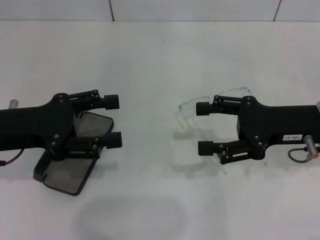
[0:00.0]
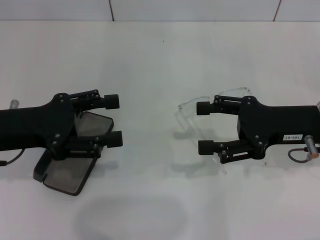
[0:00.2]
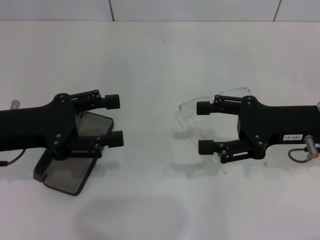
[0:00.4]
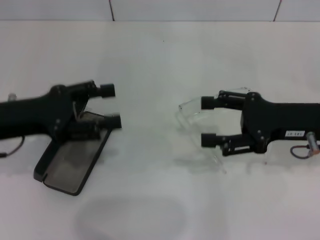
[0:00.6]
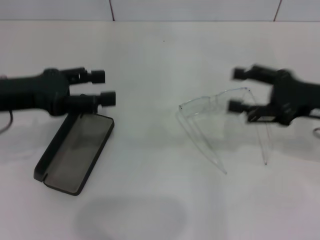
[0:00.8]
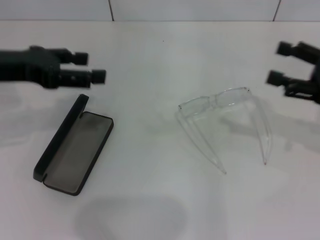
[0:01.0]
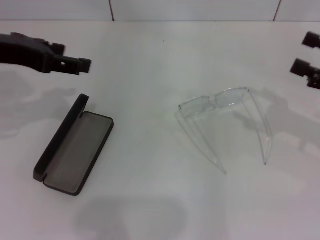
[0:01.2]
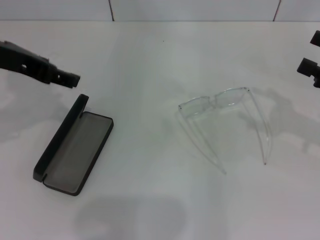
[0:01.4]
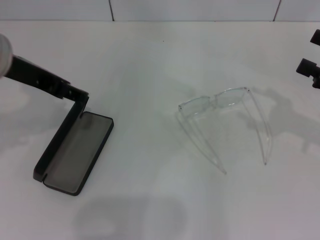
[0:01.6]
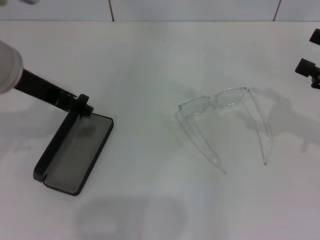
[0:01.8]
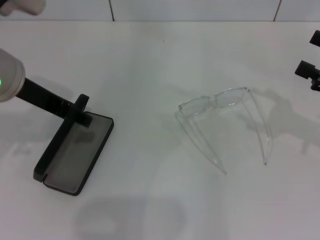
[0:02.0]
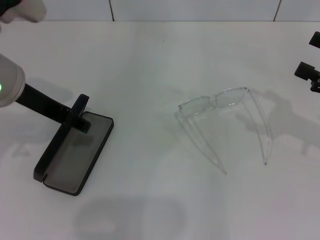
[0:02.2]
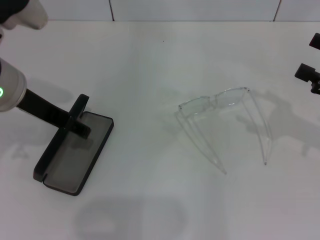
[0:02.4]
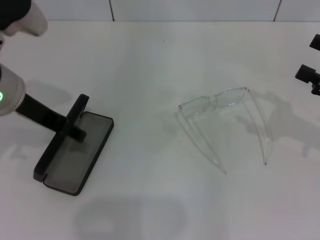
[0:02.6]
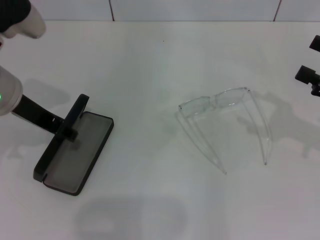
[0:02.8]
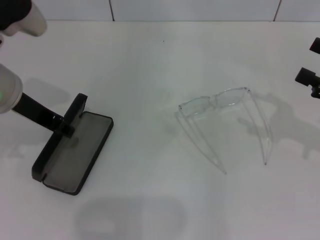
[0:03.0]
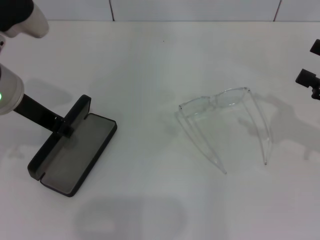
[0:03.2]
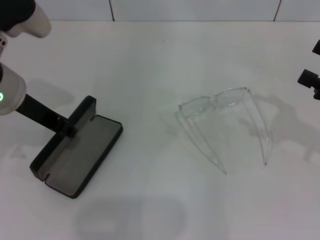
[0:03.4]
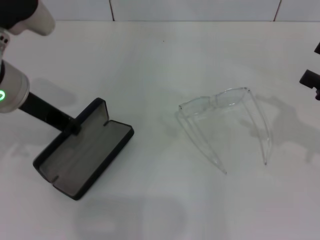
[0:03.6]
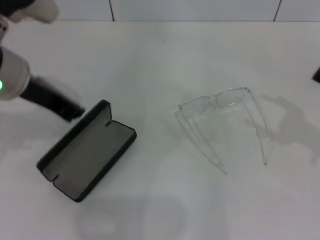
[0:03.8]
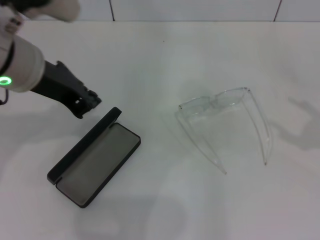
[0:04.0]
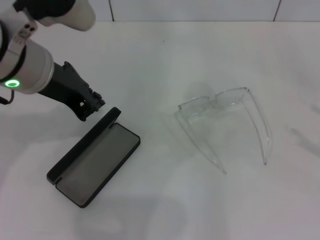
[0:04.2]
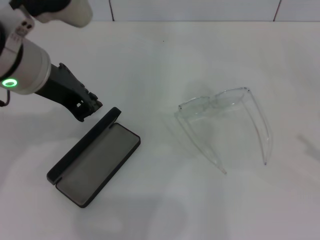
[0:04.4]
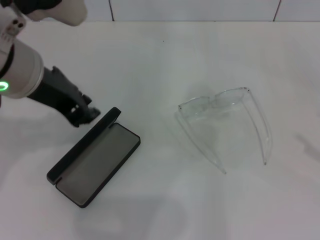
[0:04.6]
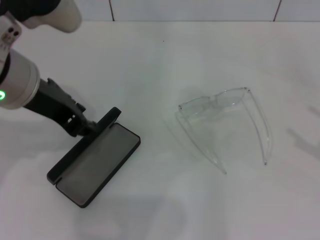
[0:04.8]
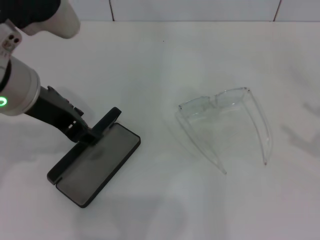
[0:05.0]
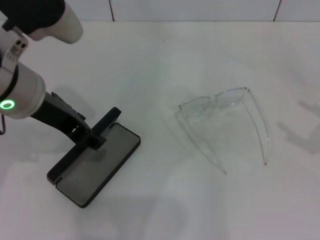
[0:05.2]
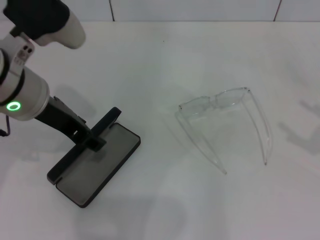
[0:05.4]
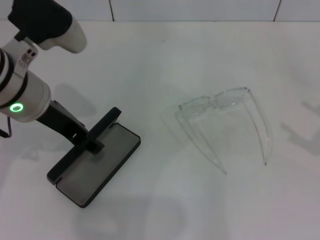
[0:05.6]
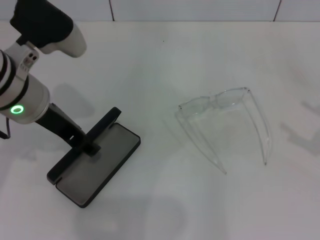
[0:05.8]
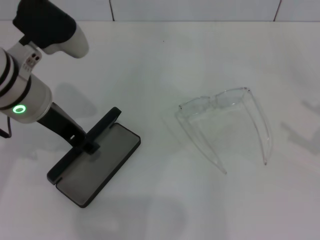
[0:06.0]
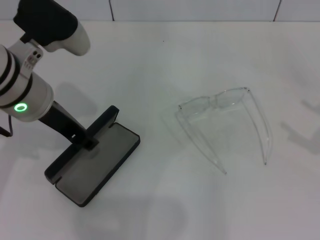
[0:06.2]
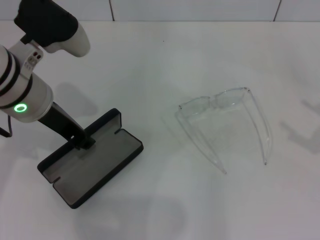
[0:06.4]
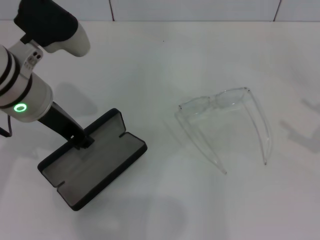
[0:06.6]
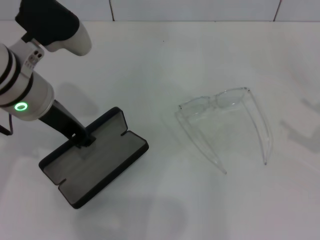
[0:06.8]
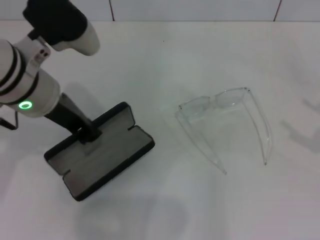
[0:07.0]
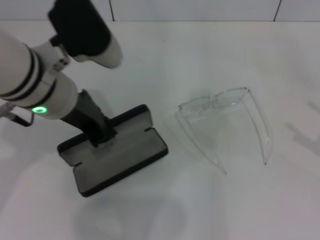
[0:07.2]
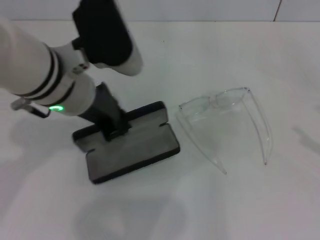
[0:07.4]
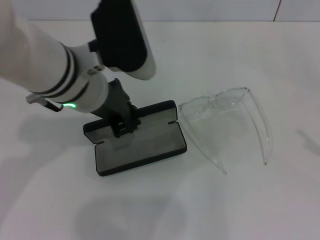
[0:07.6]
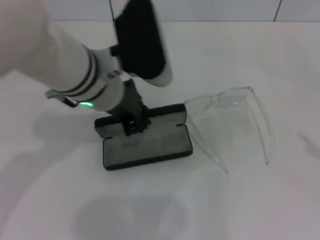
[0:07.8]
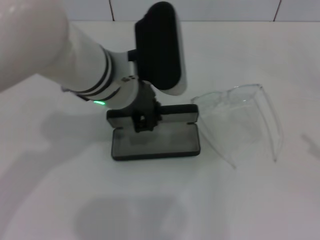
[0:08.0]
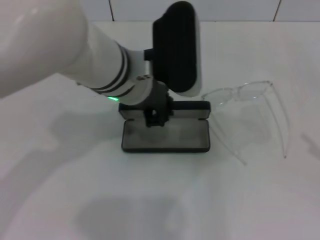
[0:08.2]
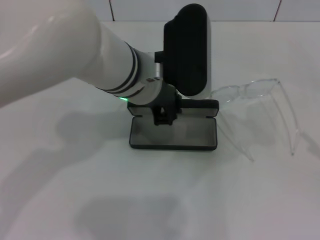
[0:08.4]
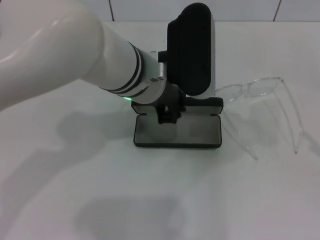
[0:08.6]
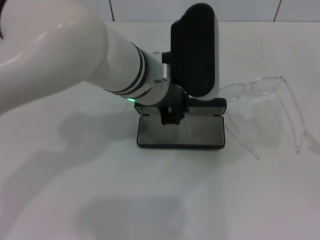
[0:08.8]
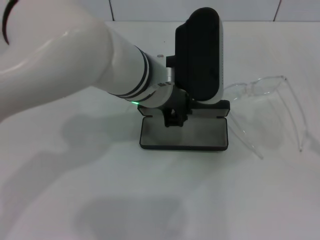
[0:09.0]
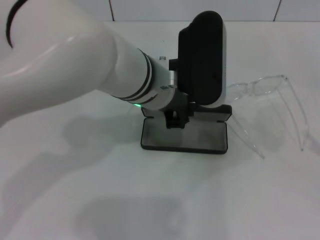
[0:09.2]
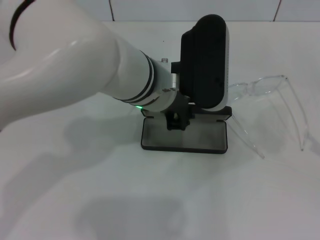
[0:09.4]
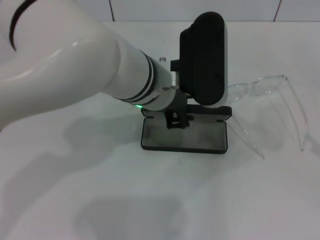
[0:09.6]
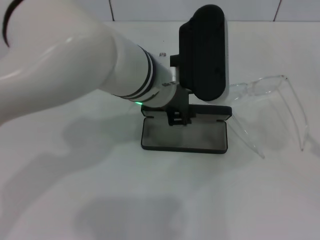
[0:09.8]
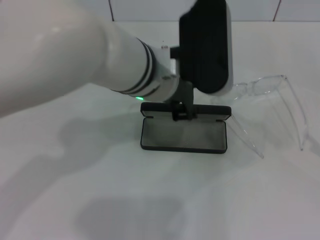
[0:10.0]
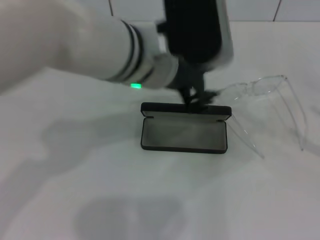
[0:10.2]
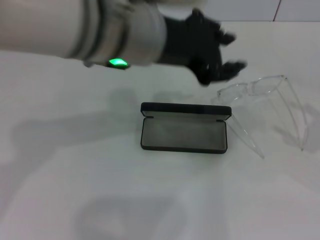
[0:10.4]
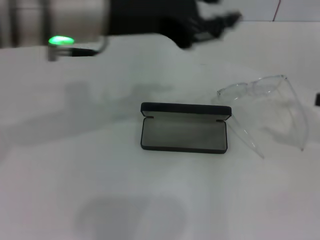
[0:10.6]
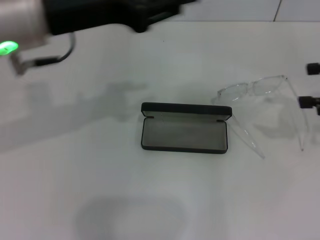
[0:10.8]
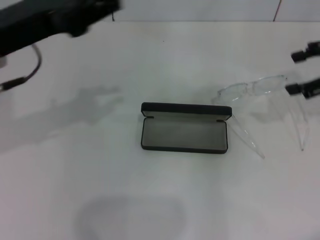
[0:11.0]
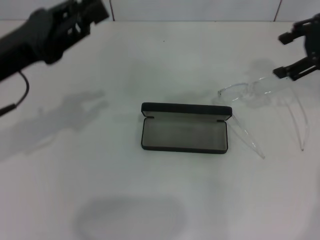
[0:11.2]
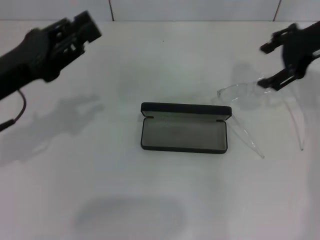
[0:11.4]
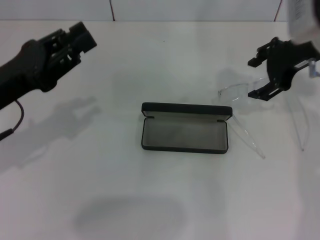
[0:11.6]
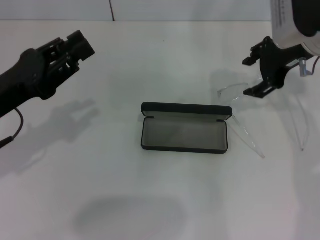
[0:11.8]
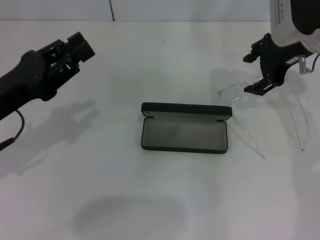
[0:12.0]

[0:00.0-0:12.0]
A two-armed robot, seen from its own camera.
Step, 0:00.0 to 0:06.6: Grab the glasses case with your left hand.
Step, 0:06.8 to 0:09.4: Place the glasses case in the center of the table with your left hand.
0:00.0 to 0:01.6: The right gripper is displaced to the right by approximately 10 cm. The left gripper goes some 10 cm upward and to the right.
0:01.6 to 0:03.0: The grippers move only a little.
0:03.0 to 0:04.4: The right gripper is displaced backward and to the right by approximately 10 cm. The left gripper shifts by some 5 cm, and closes up.
0:04.4 to 0:06.0: The left gripper moves downward, some 5 cm, and opens.
0:06.0 to 0:07.6: The left gripper heads to the right, covering some 5 cm, and closes its fingers.
0:07.6 to 0:09.0: The left gripper goes approximately 10 cm to the right.
0:09.0 to 0:10.4: The right gripper is displaced forward by some 5 cm. Meanwhile the left gripper is displaced upward by approximately 10 cm.
0:10.4 to 0:12.0: The right gripper travels to the left and forward by approximately 25 cm. Meanwhile the left gripper is displaced to the left and downward by approximately 25 cm.

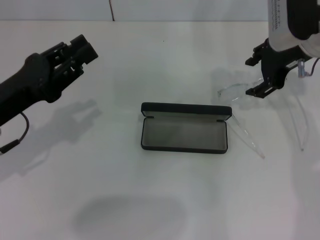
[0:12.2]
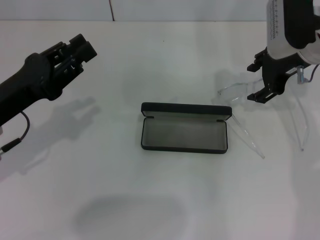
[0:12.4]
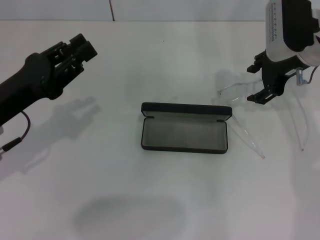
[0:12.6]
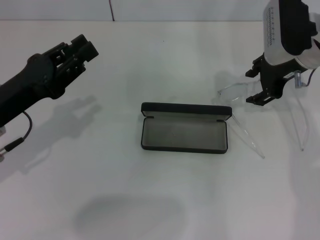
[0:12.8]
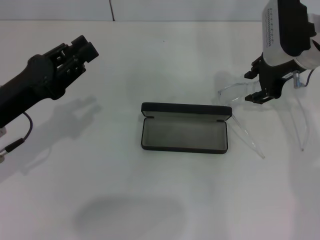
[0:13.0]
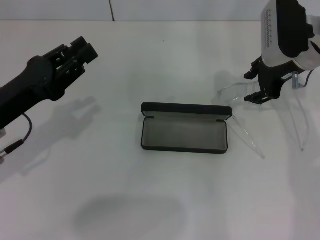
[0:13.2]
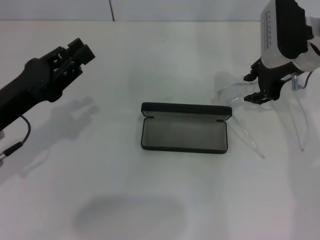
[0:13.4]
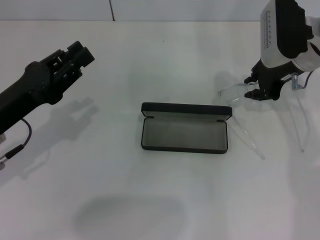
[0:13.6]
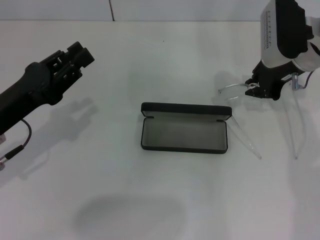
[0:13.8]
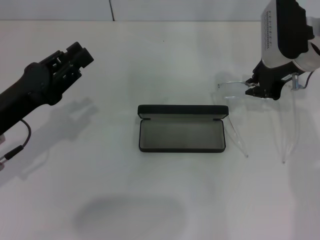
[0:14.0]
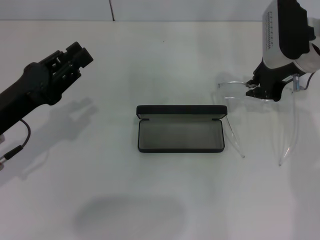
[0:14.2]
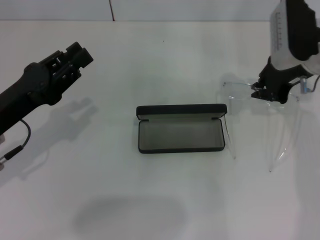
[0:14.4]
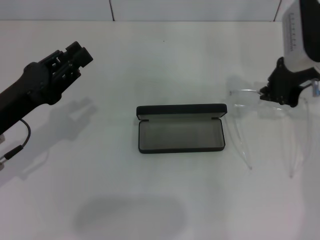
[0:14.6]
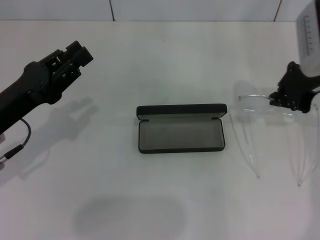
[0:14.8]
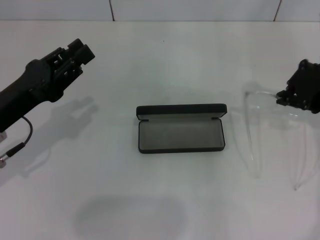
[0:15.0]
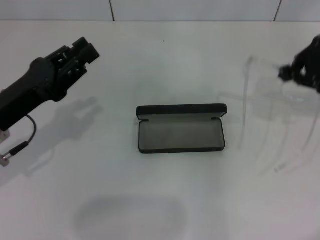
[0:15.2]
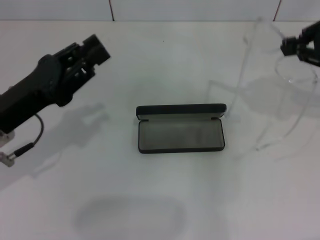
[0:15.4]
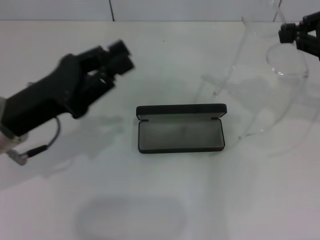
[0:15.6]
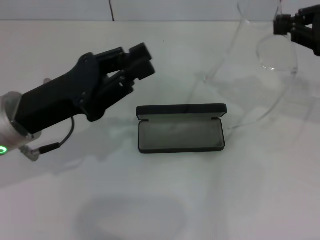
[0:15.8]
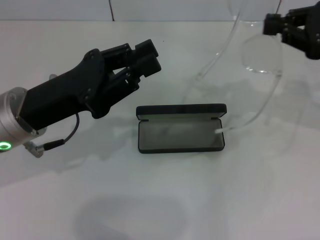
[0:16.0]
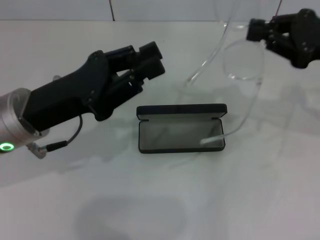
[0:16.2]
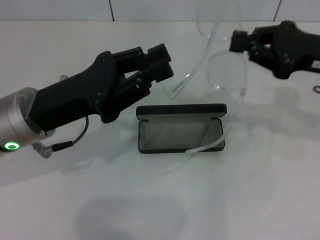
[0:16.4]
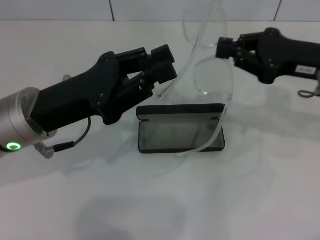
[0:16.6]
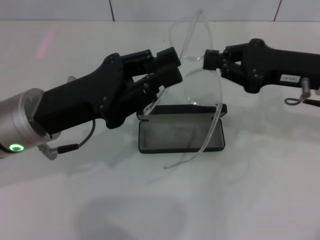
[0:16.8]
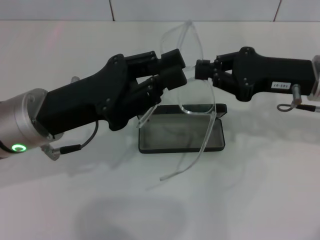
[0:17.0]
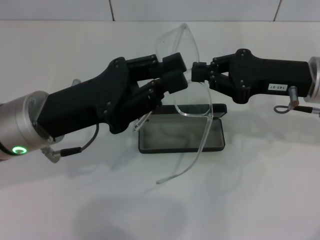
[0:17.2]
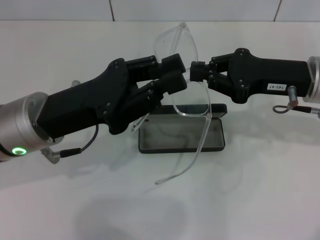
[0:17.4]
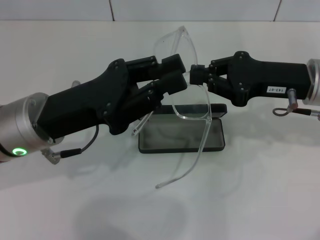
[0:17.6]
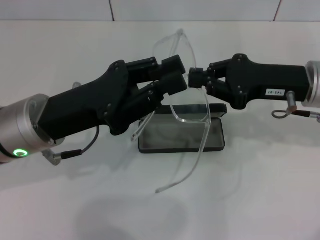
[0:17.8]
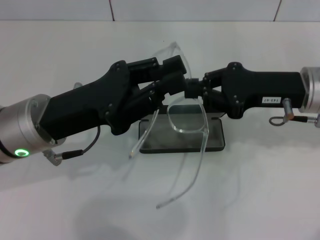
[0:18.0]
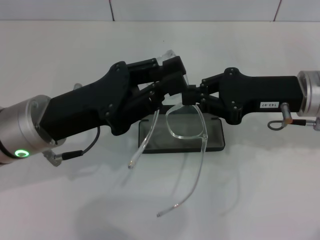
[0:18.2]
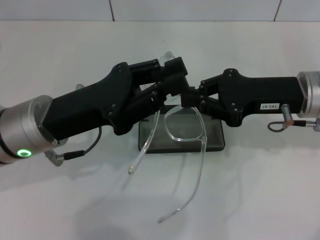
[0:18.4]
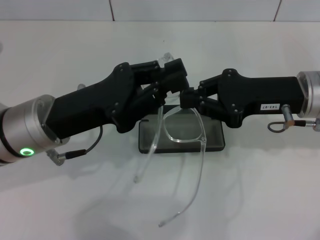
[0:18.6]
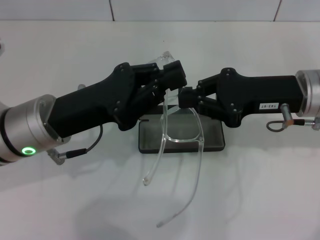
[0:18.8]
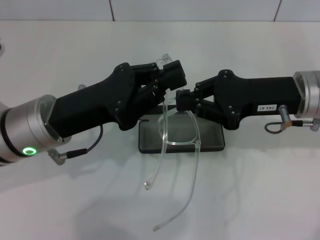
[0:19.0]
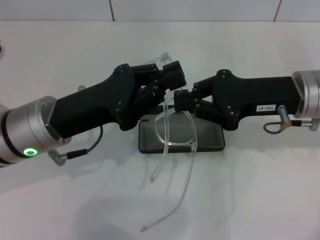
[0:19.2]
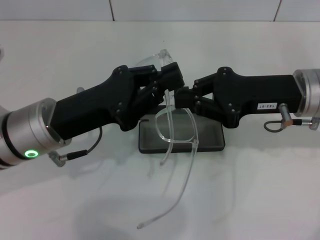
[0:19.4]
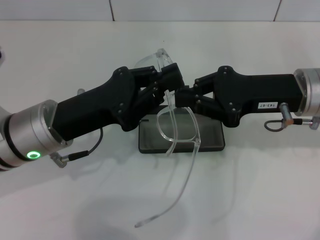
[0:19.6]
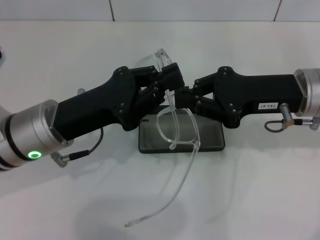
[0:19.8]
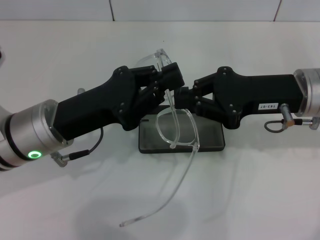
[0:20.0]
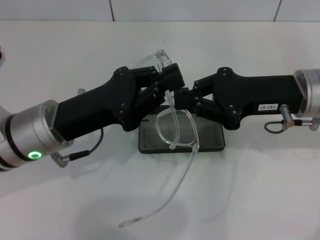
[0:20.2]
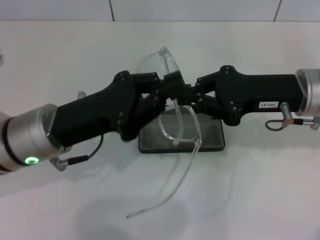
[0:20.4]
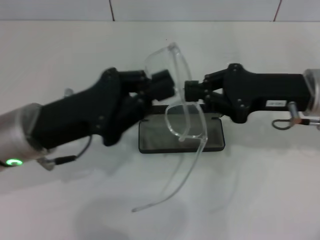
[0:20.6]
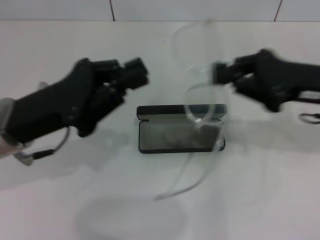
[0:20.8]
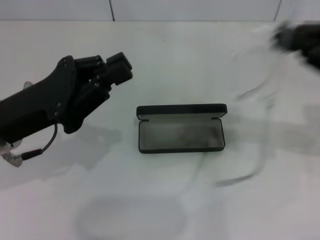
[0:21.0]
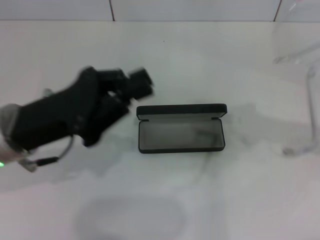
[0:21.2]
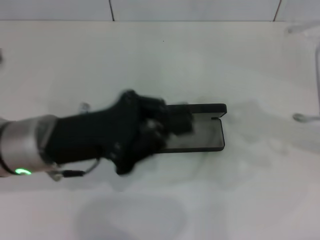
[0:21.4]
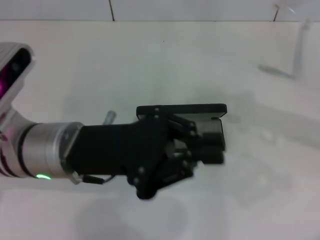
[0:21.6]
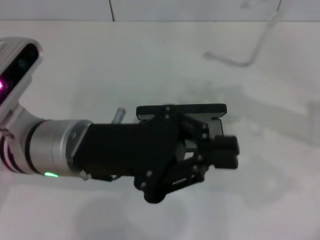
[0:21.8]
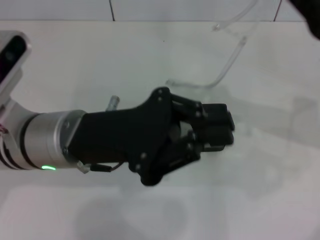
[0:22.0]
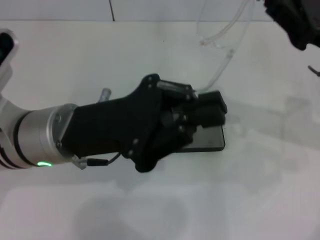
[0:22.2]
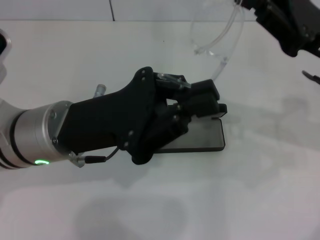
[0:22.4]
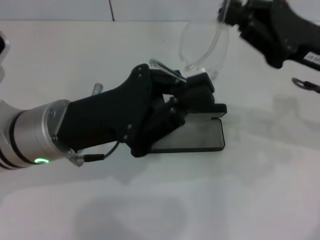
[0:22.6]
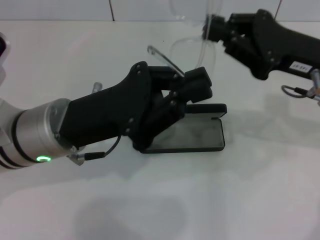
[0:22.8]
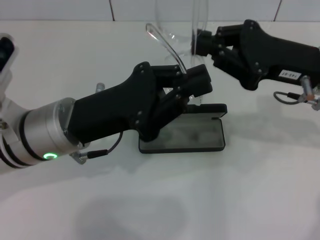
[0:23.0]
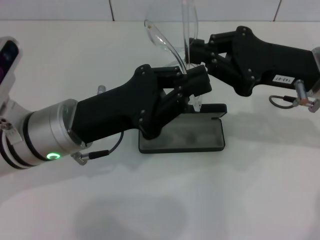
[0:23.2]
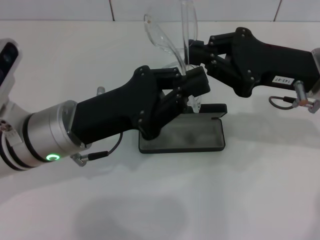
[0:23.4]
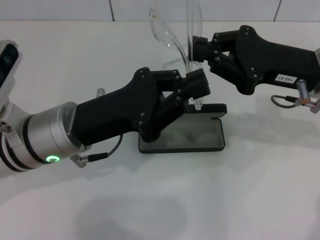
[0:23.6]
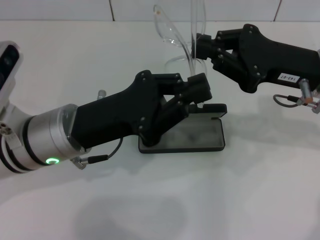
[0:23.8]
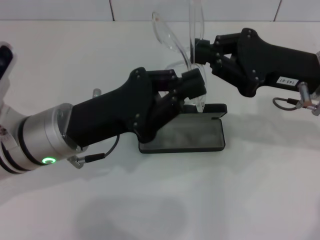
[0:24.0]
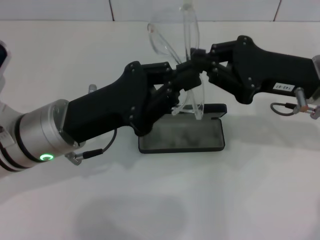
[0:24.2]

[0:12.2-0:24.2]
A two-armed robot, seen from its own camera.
0:12.2 to 0:13.8: The right gripper closes.
0:13.8 to 0:15.2: The right gripper goes roughly 10 cm to the right, backward and upward.
0:15.2 to 0:16.6: The left gripper travels to the right by about 5 cm; the right gripper shifts roughly 5 cm downward.
0:18.2 to 0:19.8: The grippers stay close to where they were, moving slightly.
0:19.8 to 0:21.2: The right gripper is displaced to the right by roughly 10 cm.
0:21.2 to 0:22.6: The right gripper moves to the left, roughly 10 cm; the left gripper heads to the right, covering about 5 cm.
